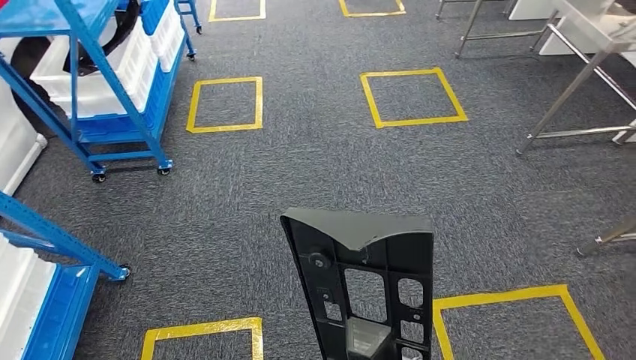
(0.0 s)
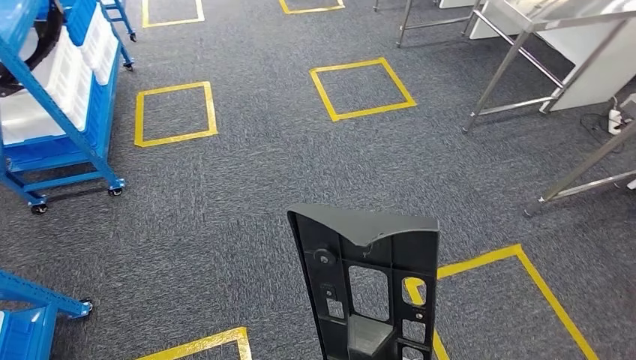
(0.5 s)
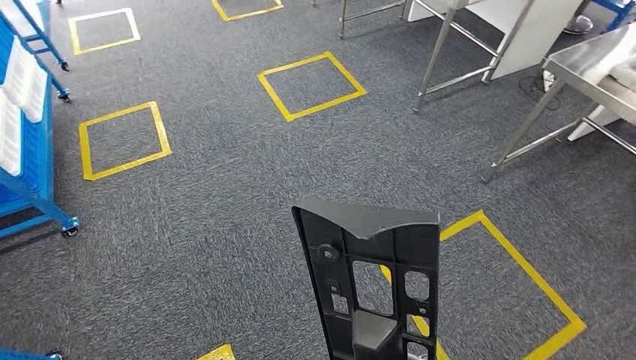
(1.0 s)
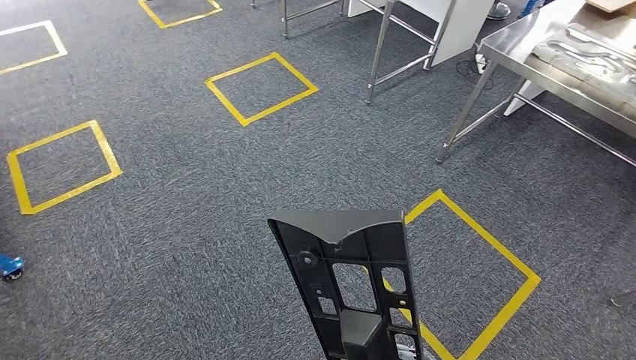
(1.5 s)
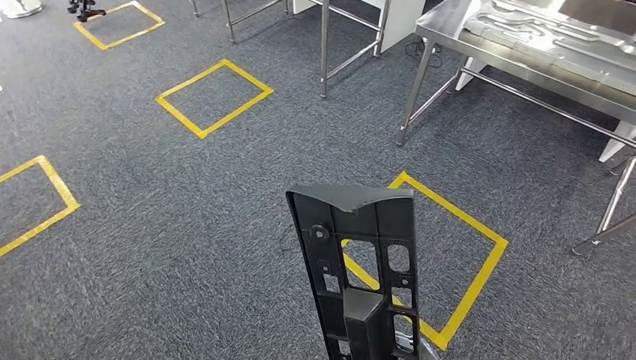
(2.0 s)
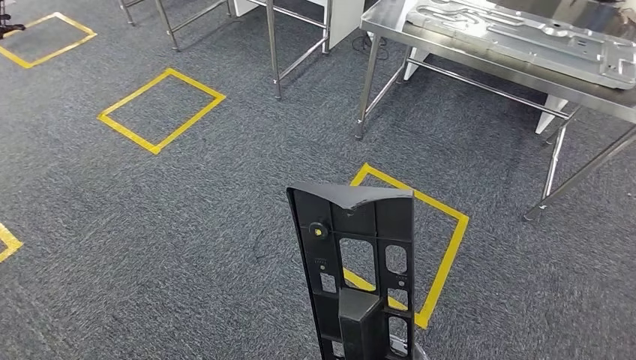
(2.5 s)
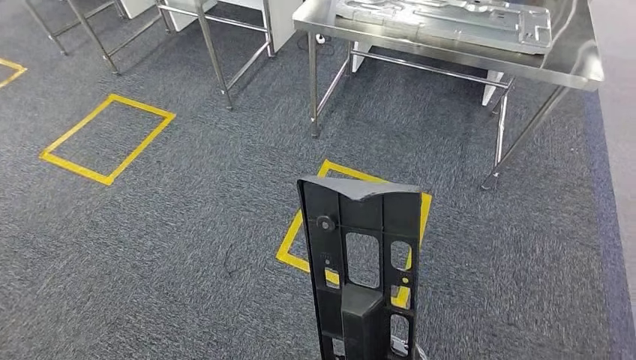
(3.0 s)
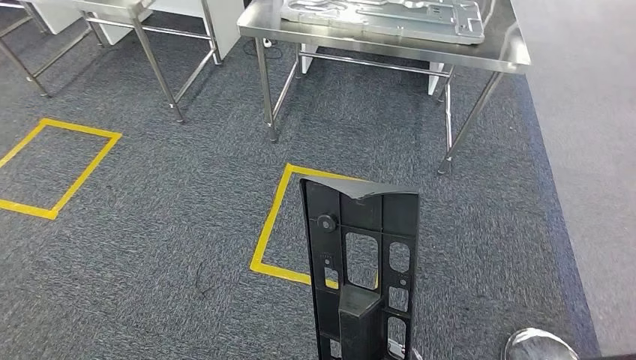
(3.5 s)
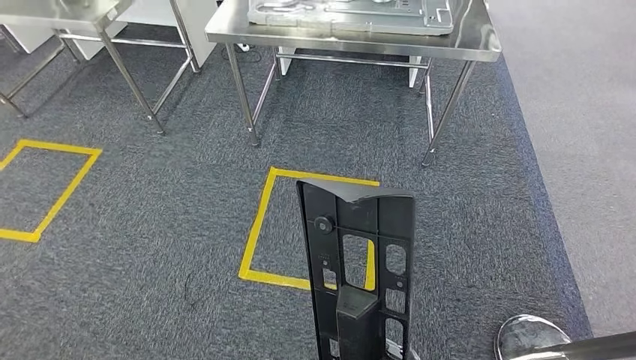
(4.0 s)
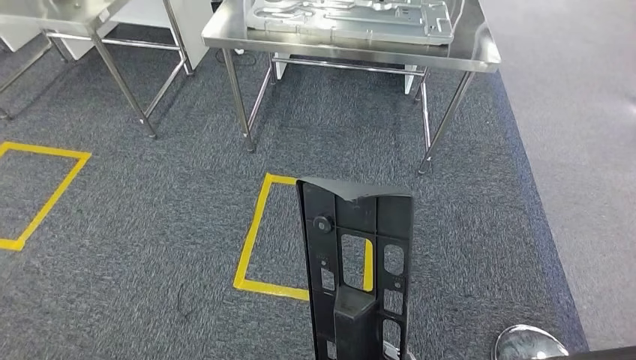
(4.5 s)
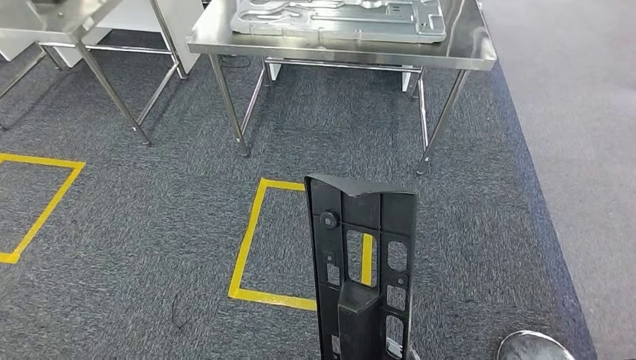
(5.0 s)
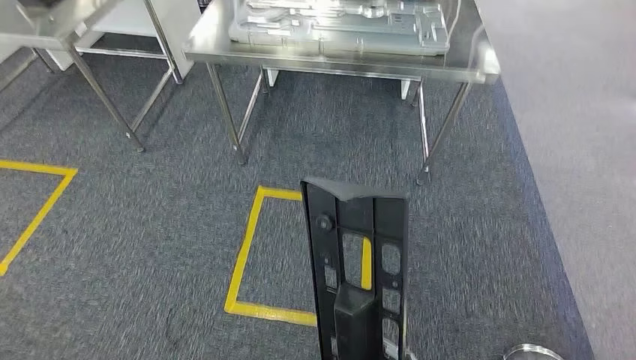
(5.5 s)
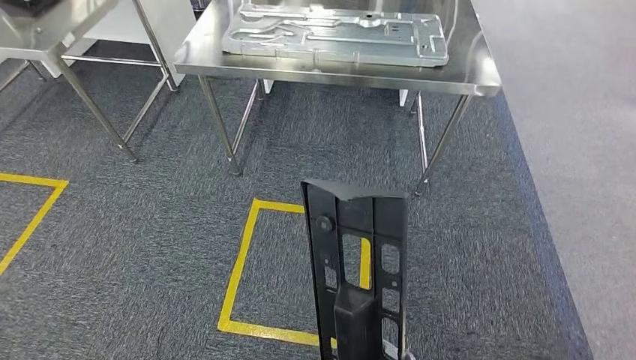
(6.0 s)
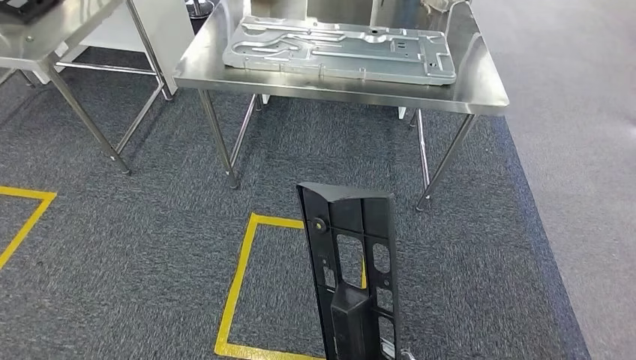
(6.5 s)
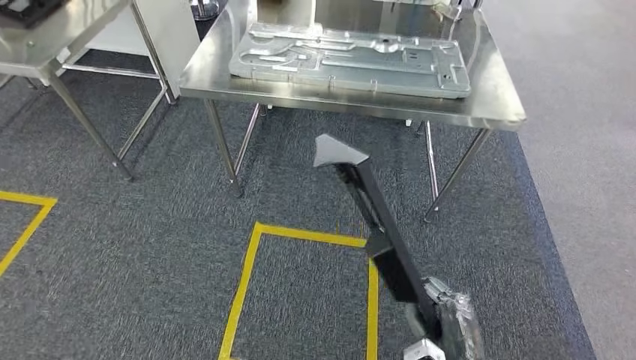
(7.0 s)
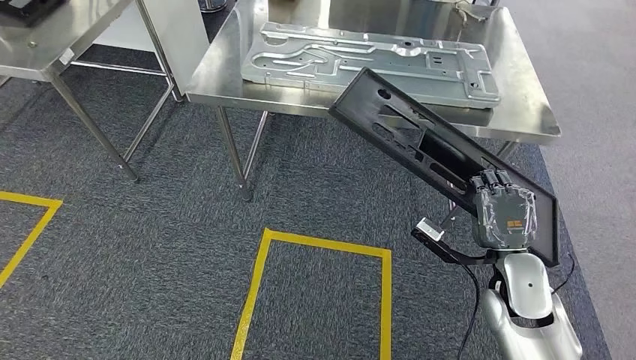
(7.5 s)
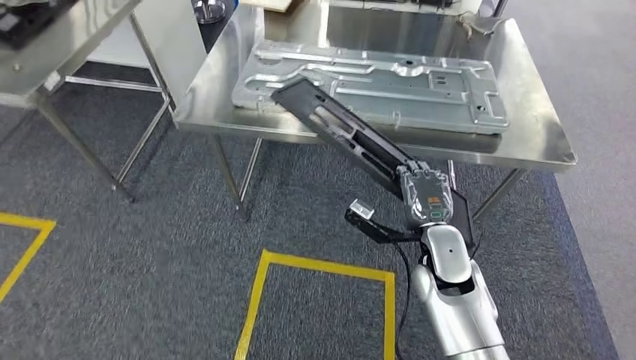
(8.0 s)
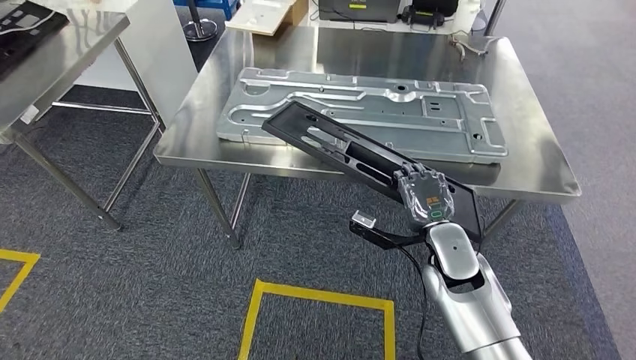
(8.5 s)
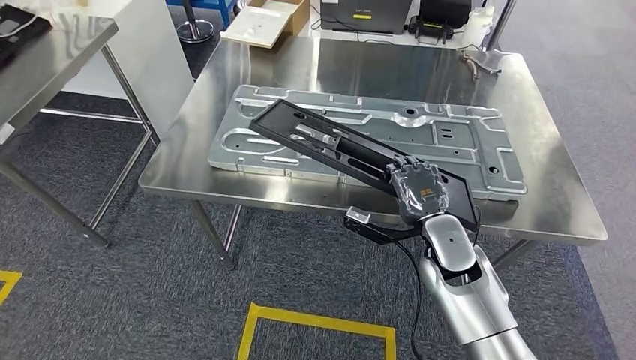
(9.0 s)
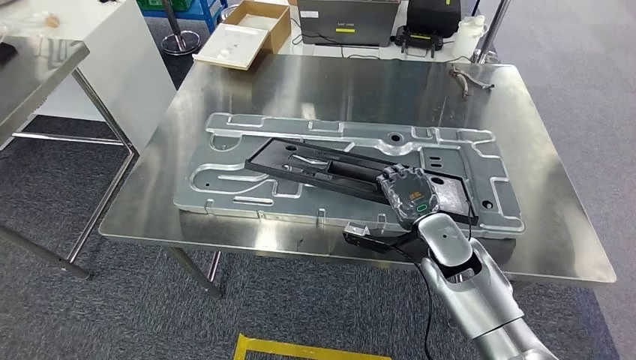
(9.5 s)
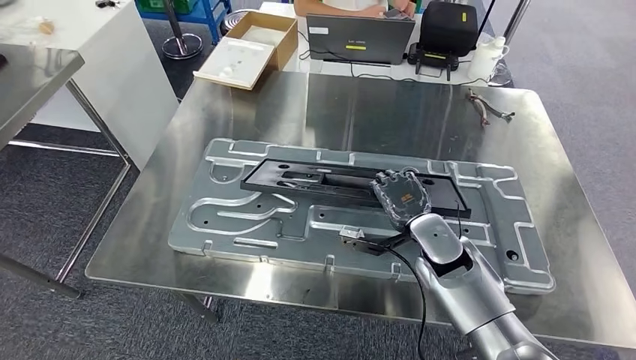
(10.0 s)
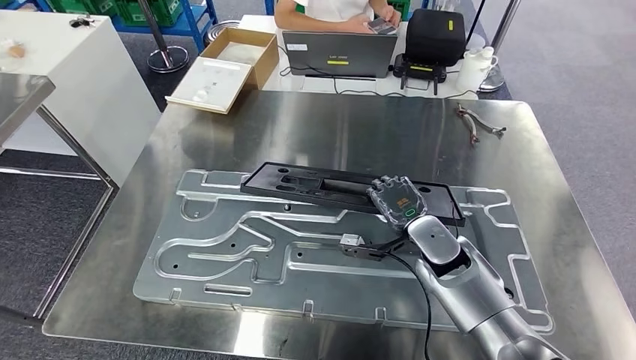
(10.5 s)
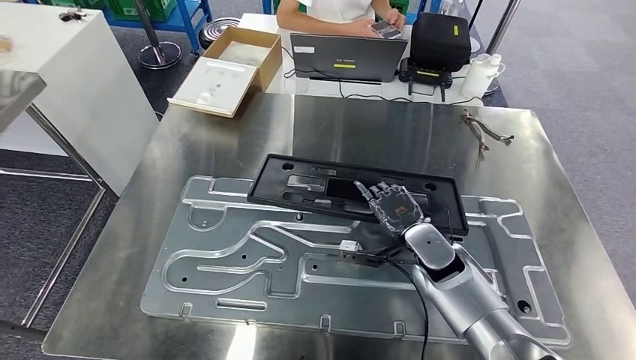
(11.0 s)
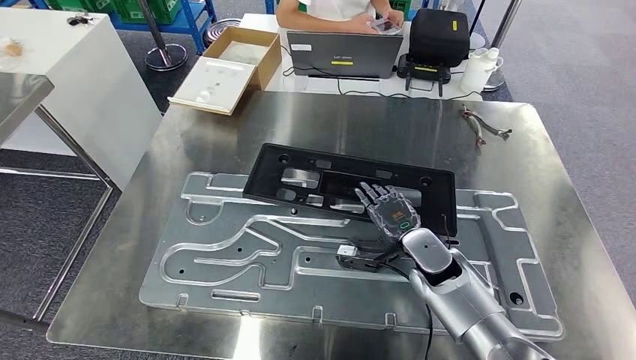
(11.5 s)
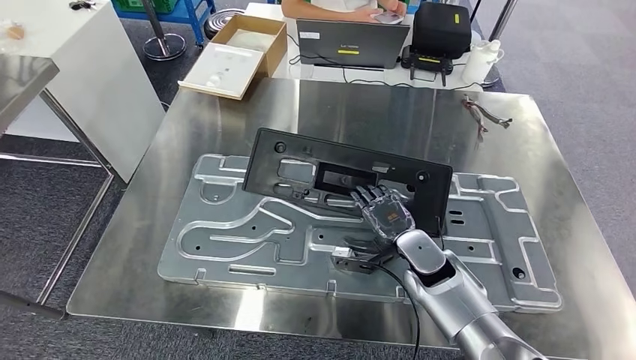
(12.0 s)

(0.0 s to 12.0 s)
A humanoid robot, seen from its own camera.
Step, 0.0 s - 5.0 s: Move the large material to the workbench.

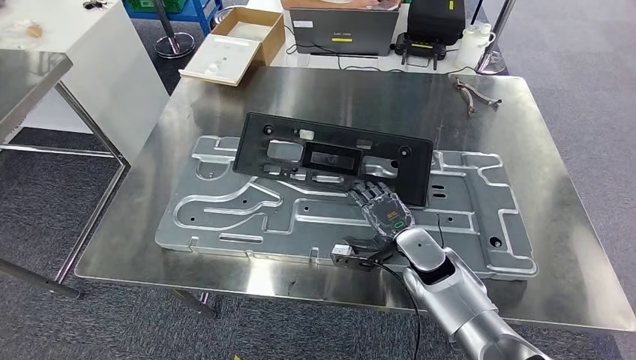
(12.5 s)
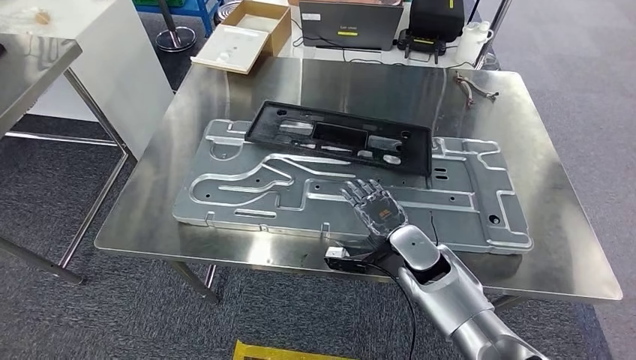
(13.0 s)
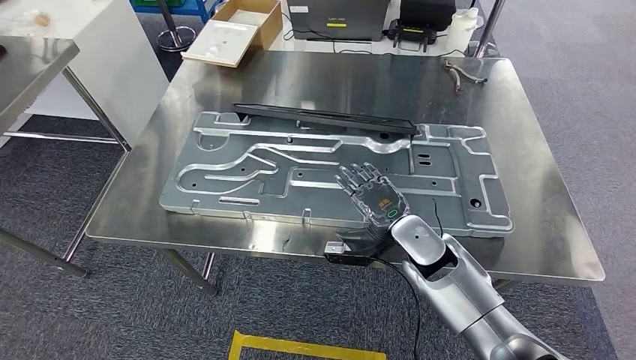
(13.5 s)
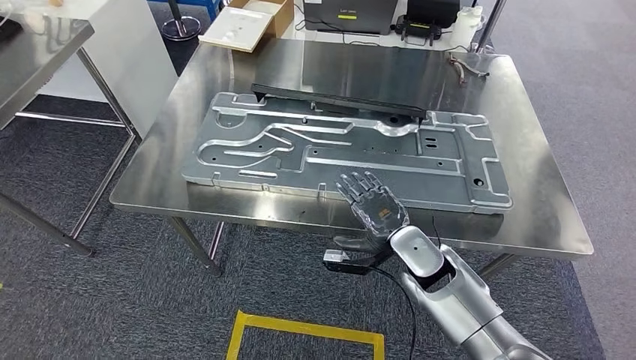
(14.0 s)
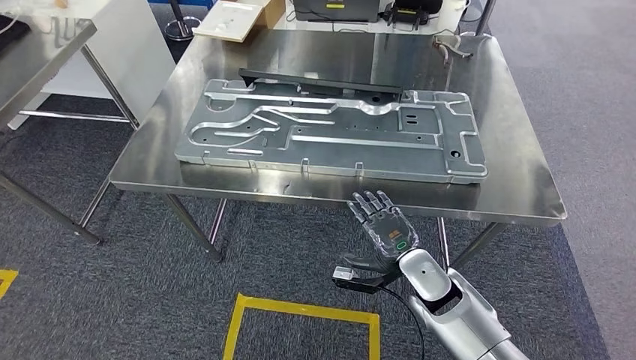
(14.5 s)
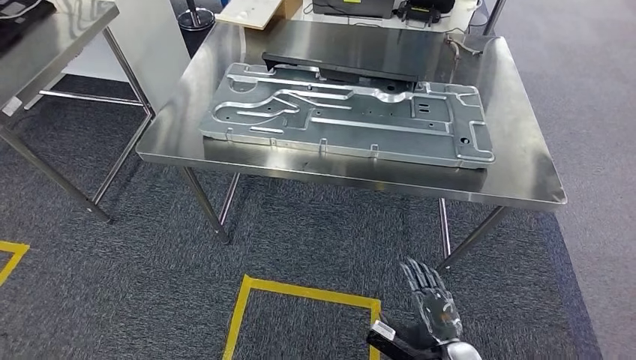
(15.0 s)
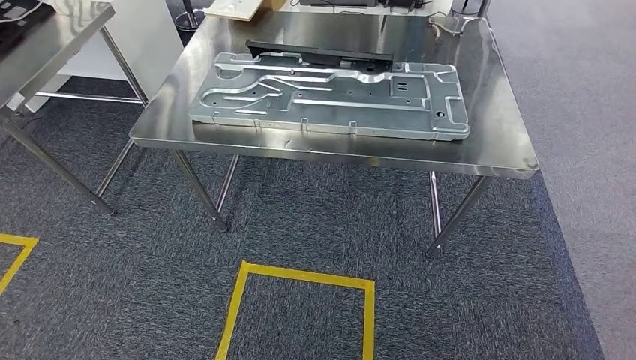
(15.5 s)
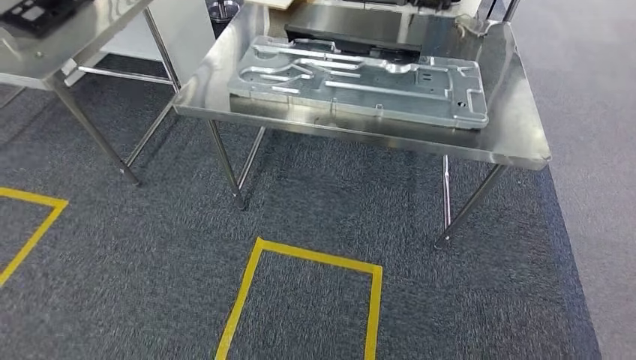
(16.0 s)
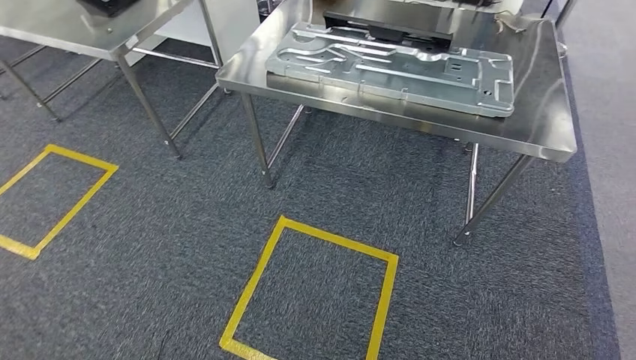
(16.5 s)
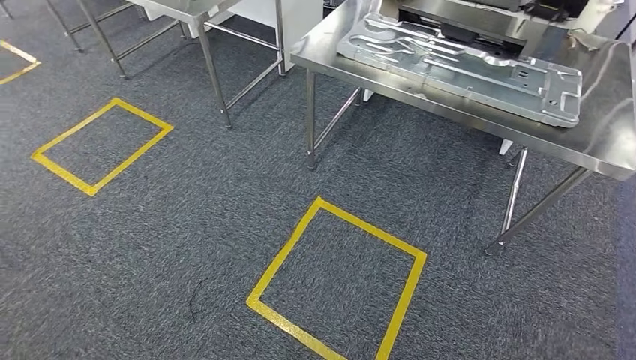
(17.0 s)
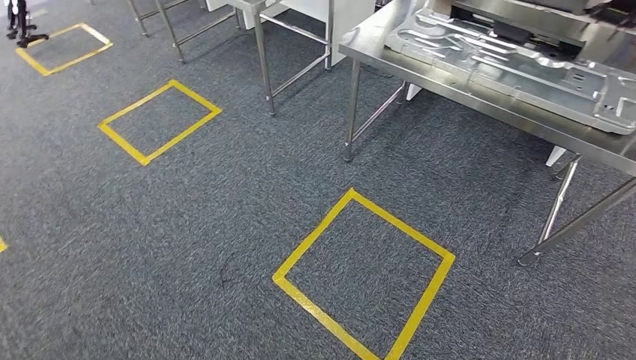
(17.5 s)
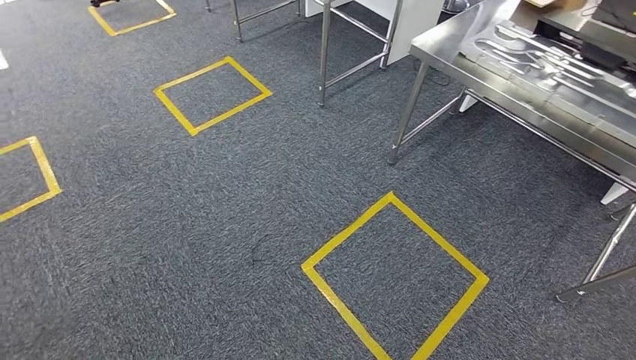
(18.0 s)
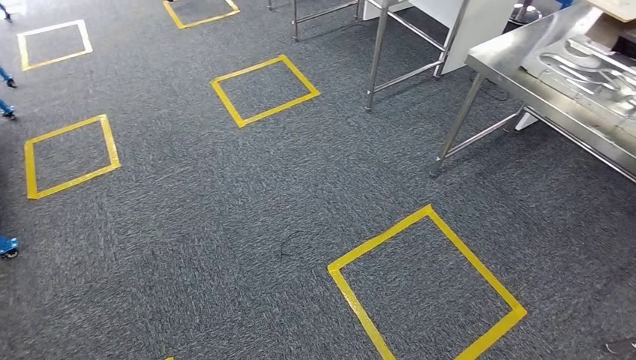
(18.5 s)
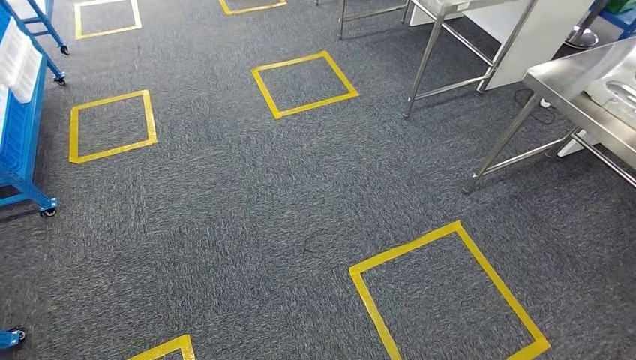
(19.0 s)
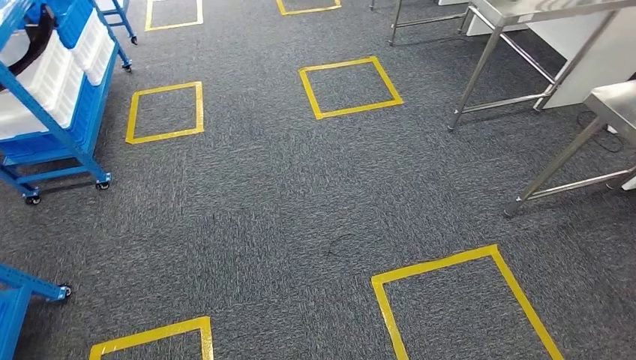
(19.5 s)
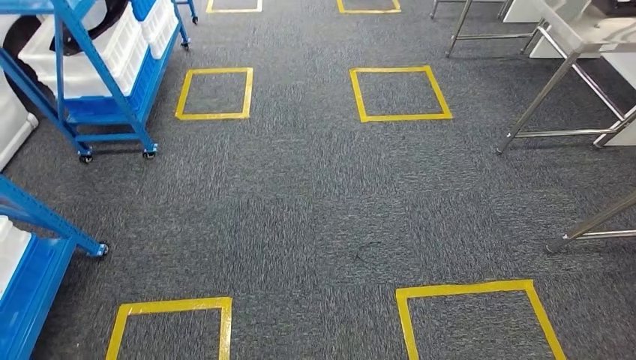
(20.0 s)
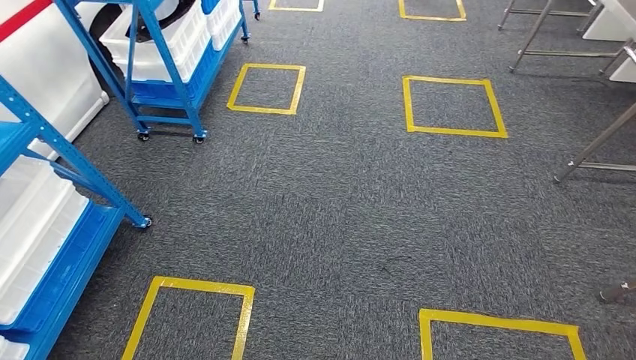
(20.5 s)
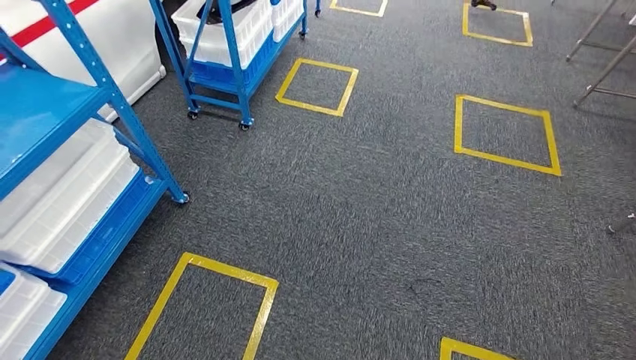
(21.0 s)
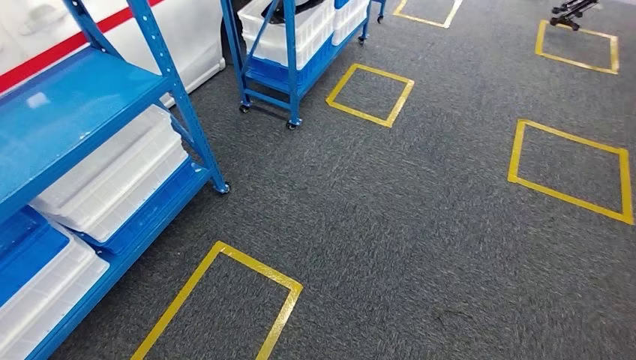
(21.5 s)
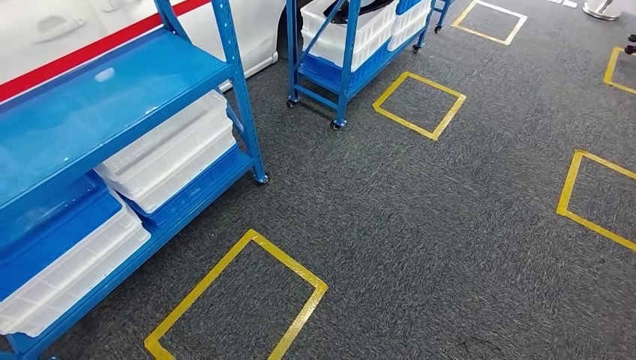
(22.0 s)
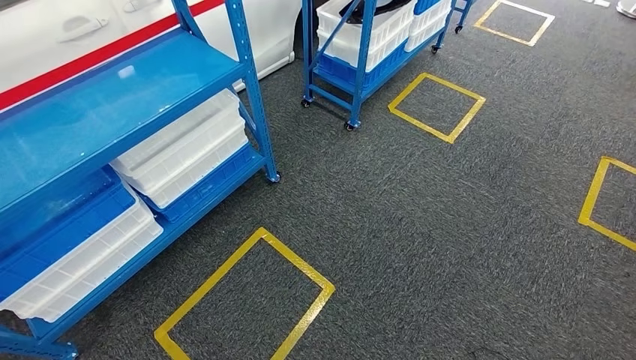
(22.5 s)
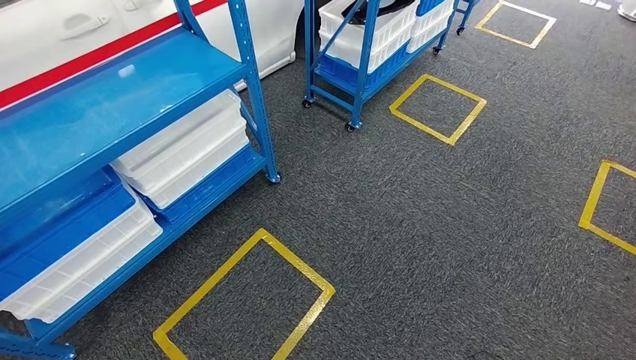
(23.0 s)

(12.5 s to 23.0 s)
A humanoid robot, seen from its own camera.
Step, 12.5 s - 14.5 s: Insert the large material into the corresponding slot on the workbench.
